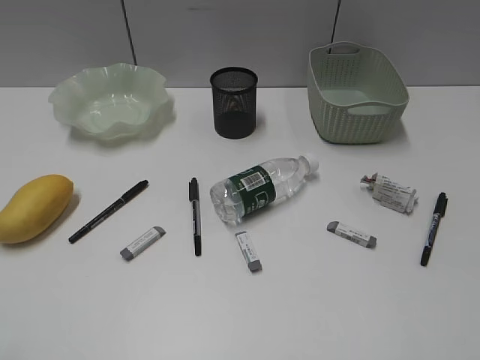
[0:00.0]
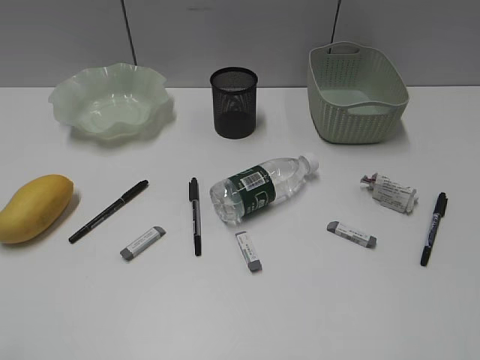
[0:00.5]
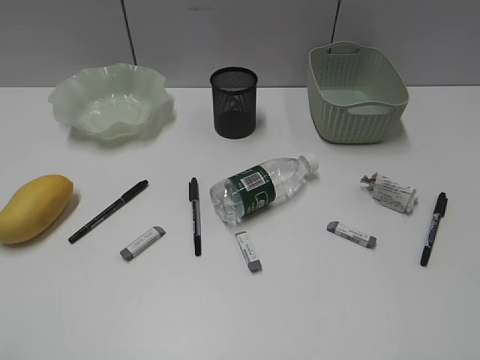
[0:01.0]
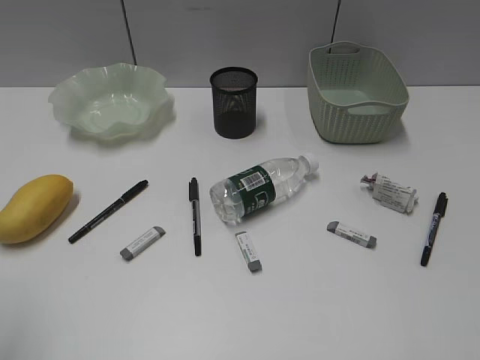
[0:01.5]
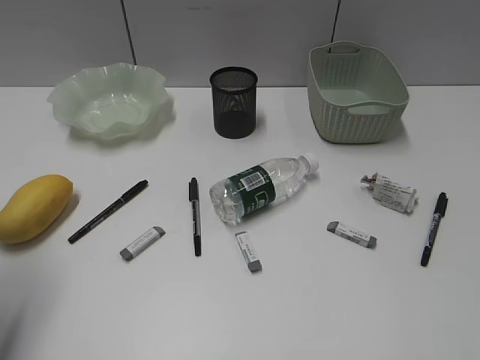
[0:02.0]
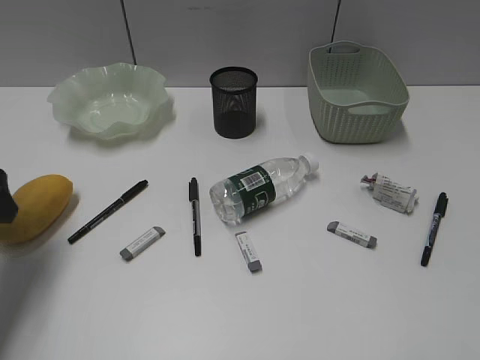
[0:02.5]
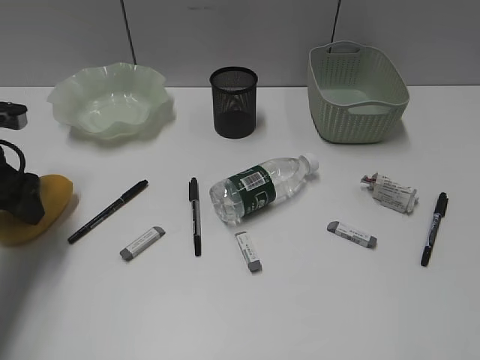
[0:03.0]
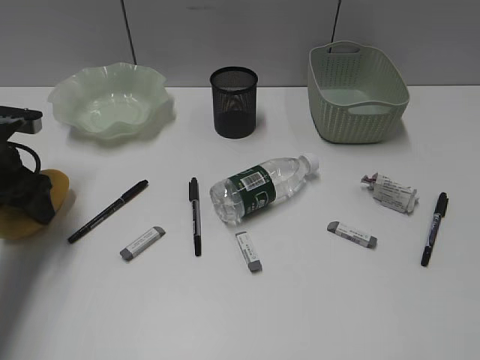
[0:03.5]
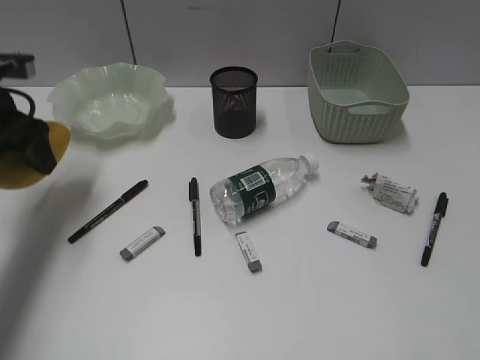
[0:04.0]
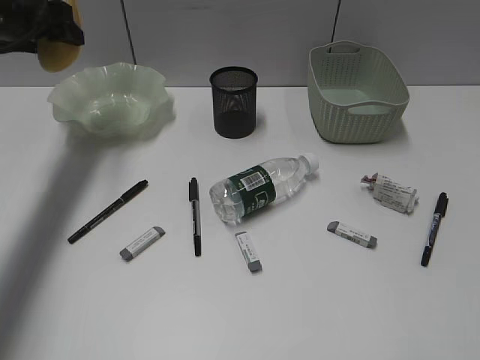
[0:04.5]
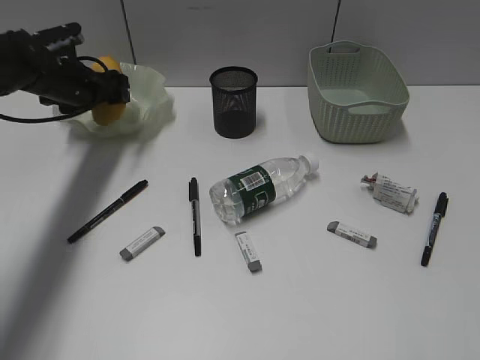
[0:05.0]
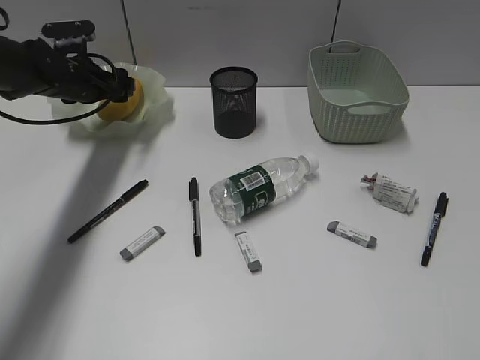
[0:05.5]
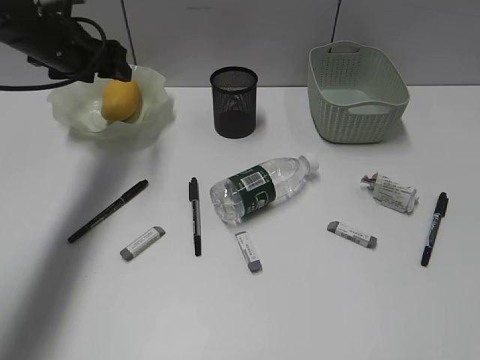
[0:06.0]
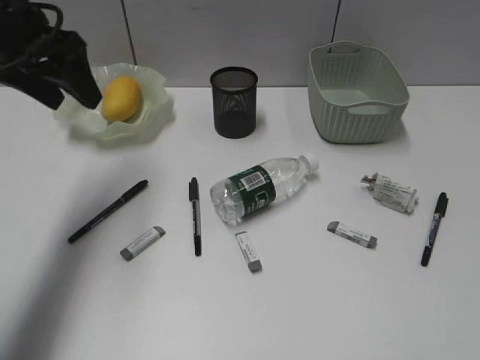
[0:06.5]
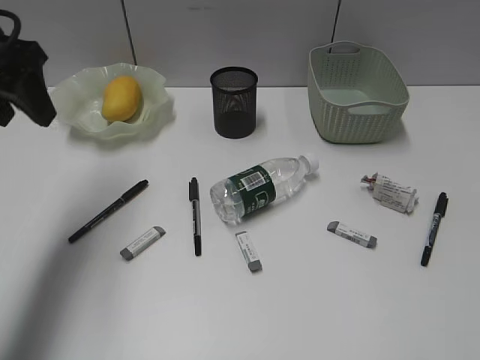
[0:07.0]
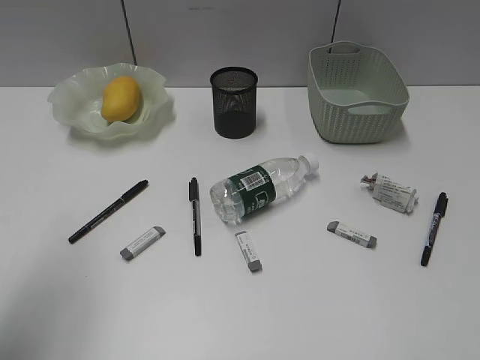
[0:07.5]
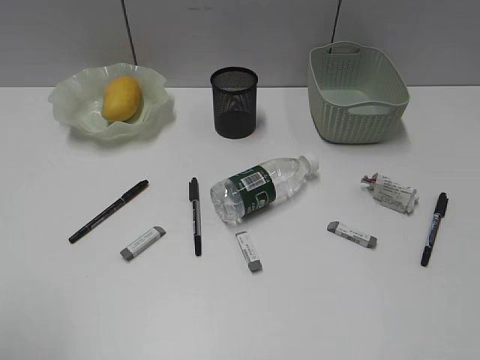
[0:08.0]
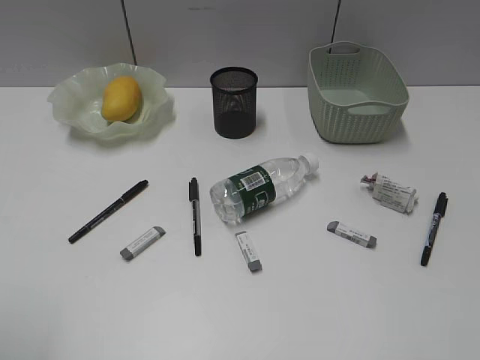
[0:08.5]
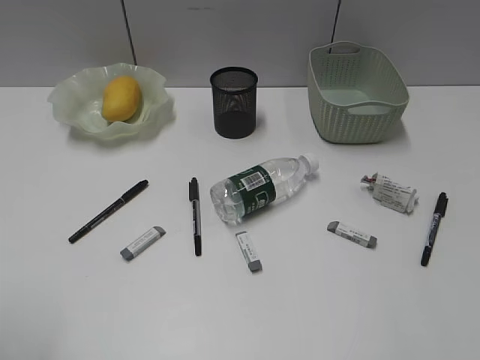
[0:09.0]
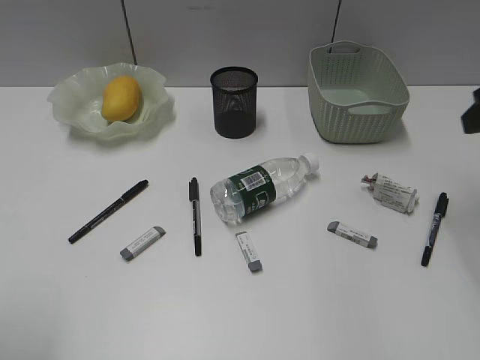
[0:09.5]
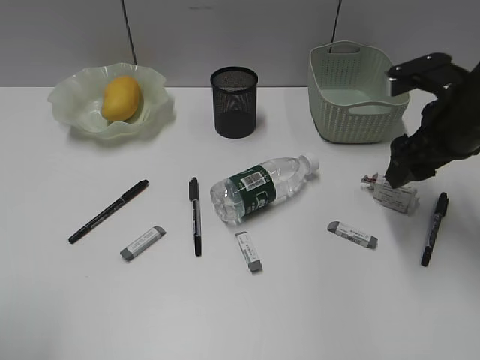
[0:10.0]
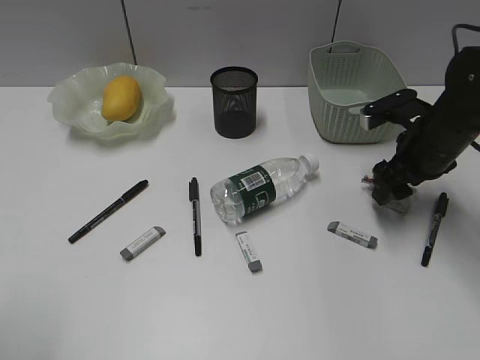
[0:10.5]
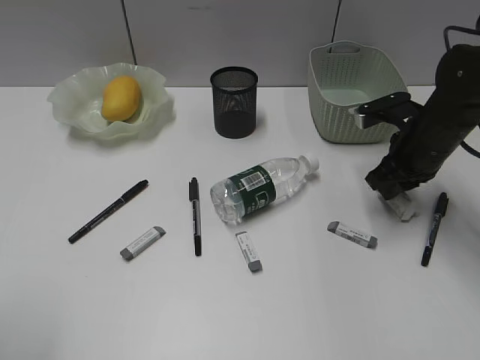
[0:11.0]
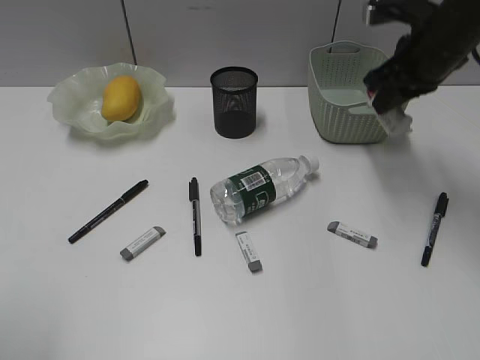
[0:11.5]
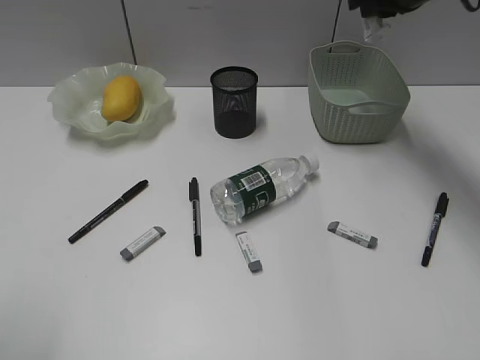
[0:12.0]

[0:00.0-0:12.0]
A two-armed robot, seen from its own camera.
Step, 0:02.5 to 0:03.0: Grasp the mango with left gripper.
Step, 0:03.5 to 0:06.0: Place the mango in the plate with left gripper.
Step, 0:06.5 to 0:11.0: Grasp the waste paper with right gripper.
0:02.0 to 0:04.0: The left gripper heads forward, covering about 20 cm.
0:04.0 to 0:06.0: The left gripper is displaced forward and to the right by about 10 cm.
0:06.0 to 0:08.0: The left gripper is displaced backward by approximately 40 cm.
0:08.0 to 0:10.0: The right gripper travels forward by some 35 cm.
0:10.0 to 0:12.0: The right gripper is displaced forward and upward by roughly 15 cm, and closes up.

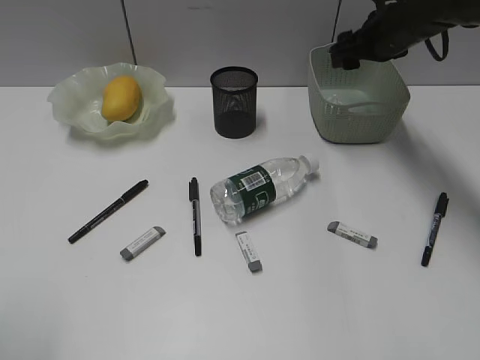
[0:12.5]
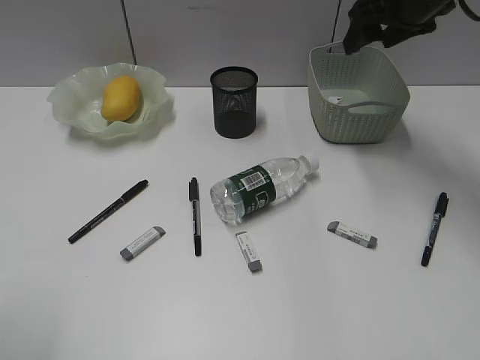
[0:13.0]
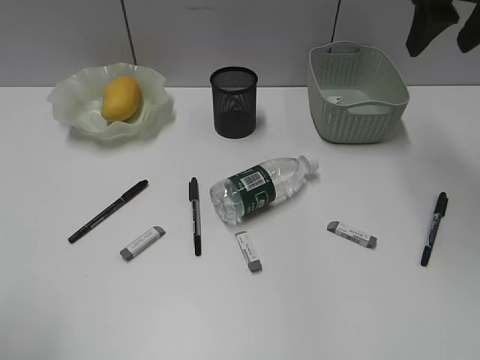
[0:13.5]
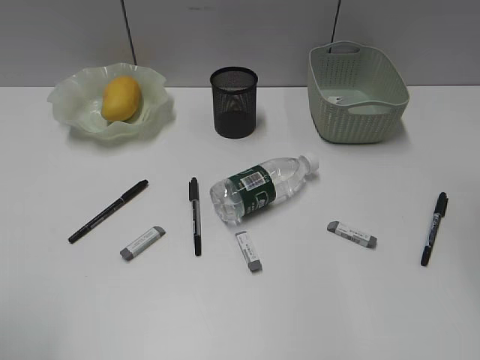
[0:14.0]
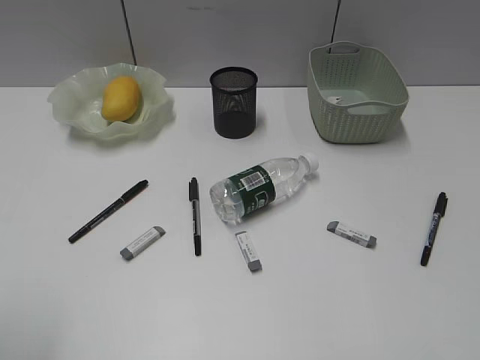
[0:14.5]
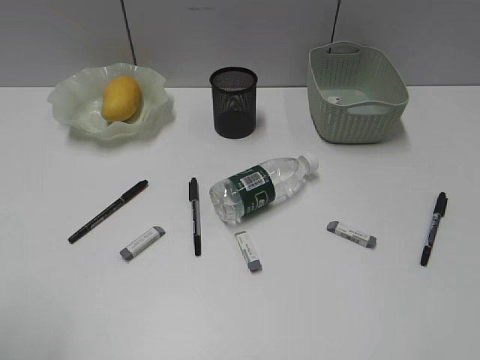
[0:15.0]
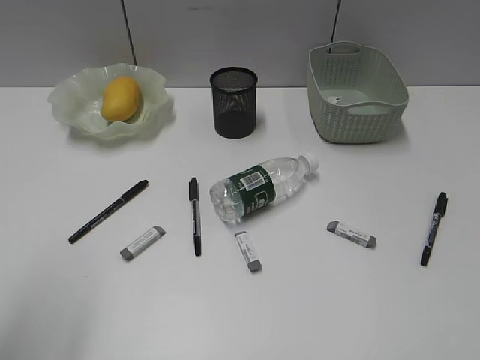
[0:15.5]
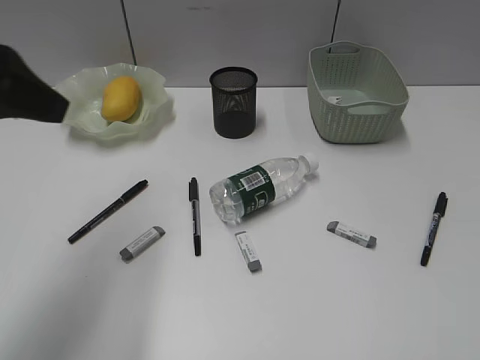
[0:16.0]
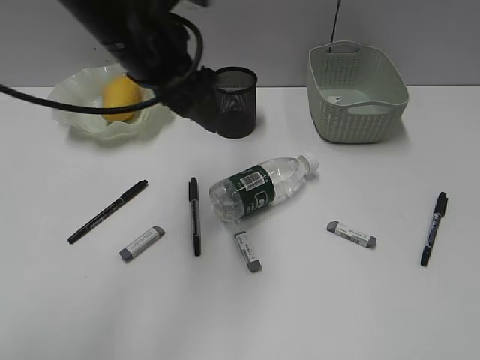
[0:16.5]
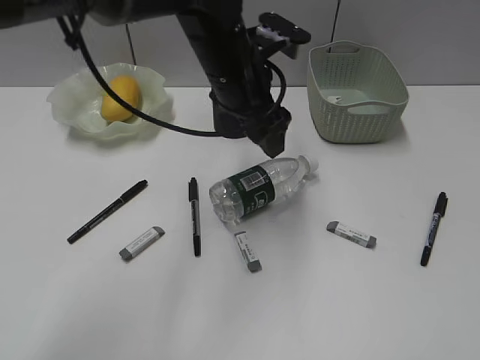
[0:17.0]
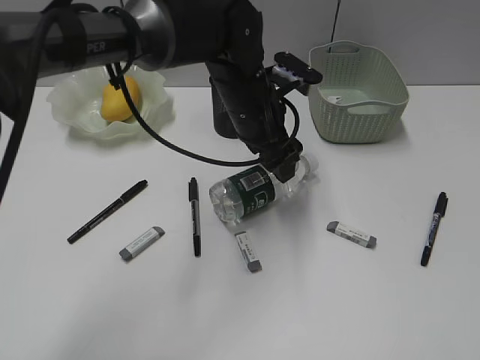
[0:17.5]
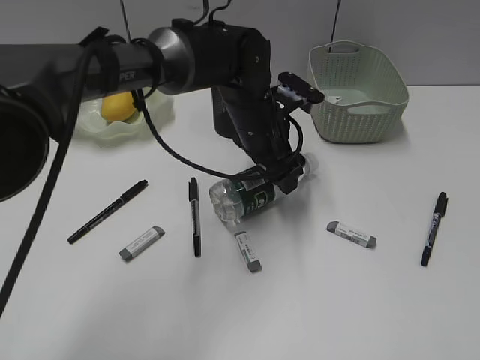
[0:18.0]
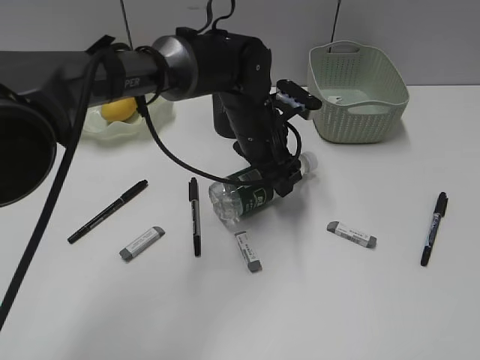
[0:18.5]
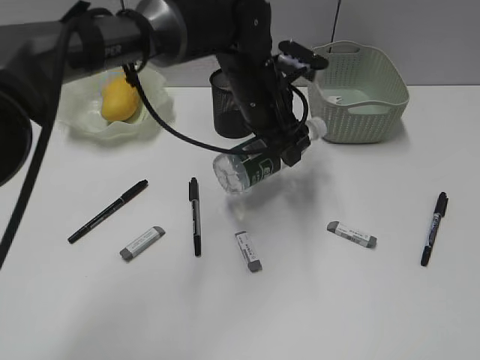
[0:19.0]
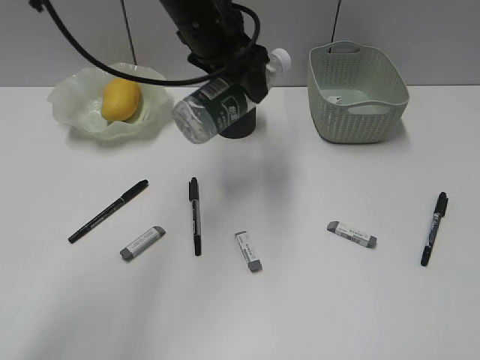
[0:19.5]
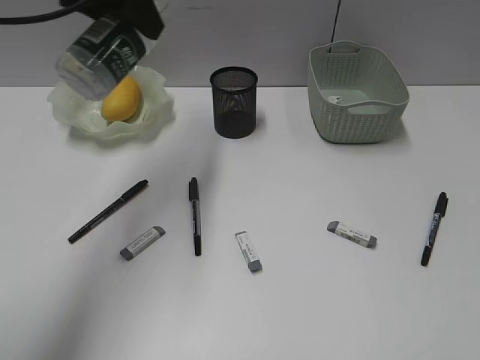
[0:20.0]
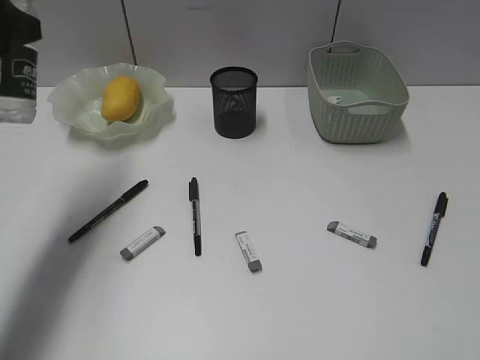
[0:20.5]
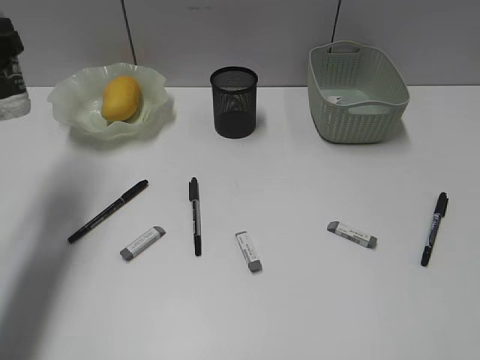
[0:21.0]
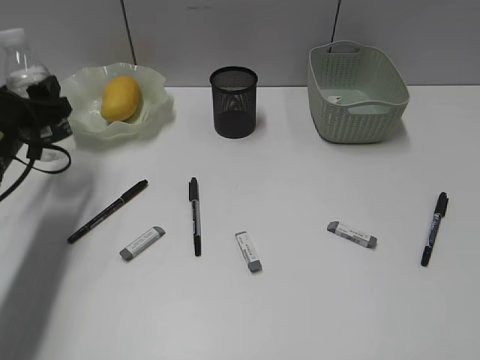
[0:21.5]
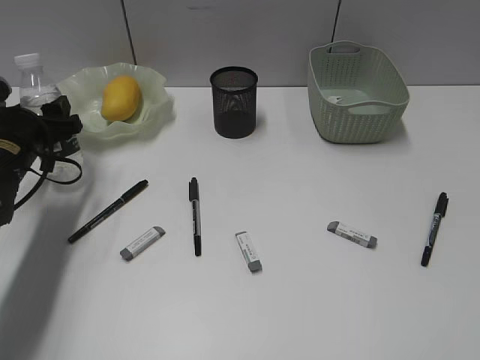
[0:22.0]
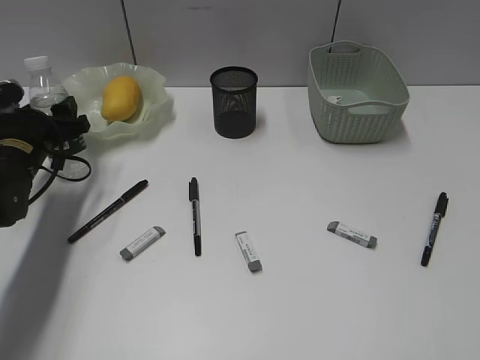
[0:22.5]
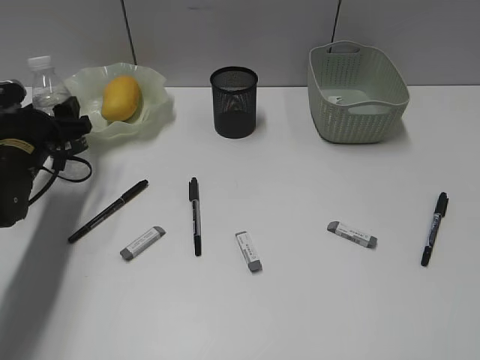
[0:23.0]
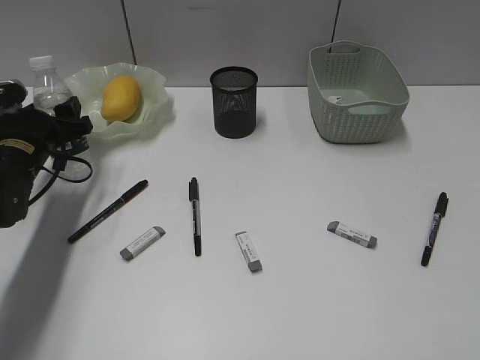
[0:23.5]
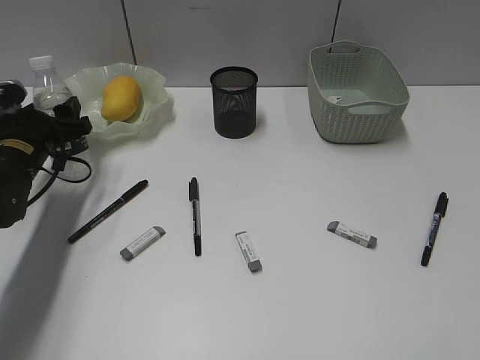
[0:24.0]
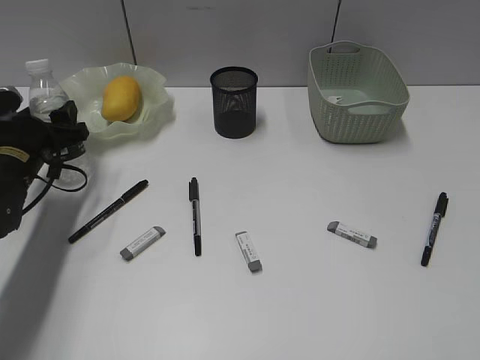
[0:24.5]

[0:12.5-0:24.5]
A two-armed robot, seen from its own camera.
Step, 0:13.0 to 0:18.5: Grasp the bottle with left gripper.
0:12.5 to 0:14.5: The right gripper moves backward, roughly 40 cm.
0:14.5 to 0:16.5: The right gripper heads downward and backward, covering some 10 cm; the left gripper is displaced forward and to the right by some 35 cm.
0:16.5 to 0:18.5: The left gripper shifts about 20 cm downward, to the right and forward.
0:18.5 to 0:20.5: The left gripper is displaced to the left and upward by approximately 35 cm.
0:20.5 to 0:22.5: The left gripper moves downward and forward, roughly 20 cm.
0:22.5 to 0:24.5: Both grippers stay put.

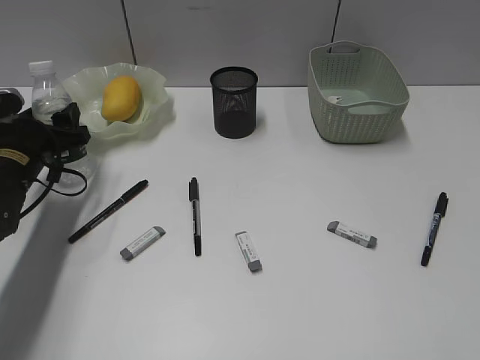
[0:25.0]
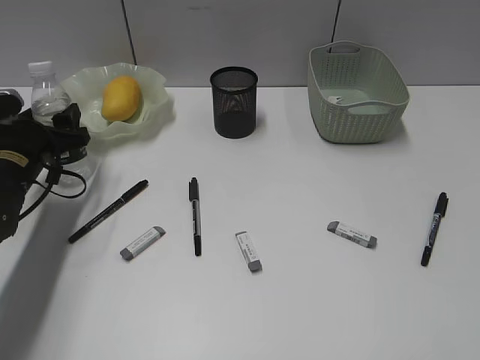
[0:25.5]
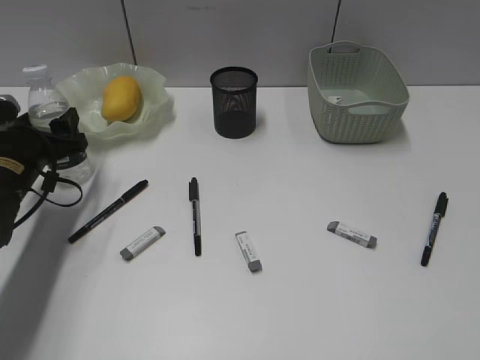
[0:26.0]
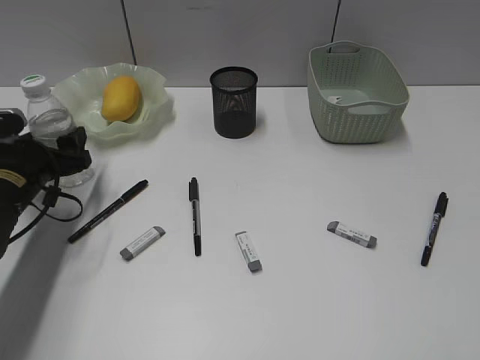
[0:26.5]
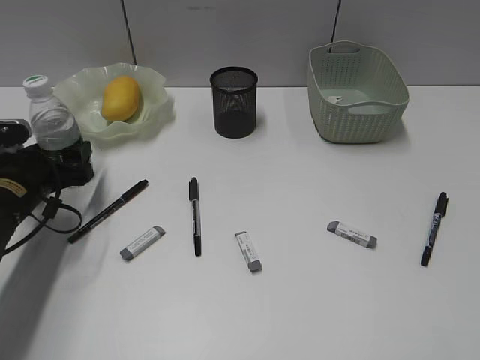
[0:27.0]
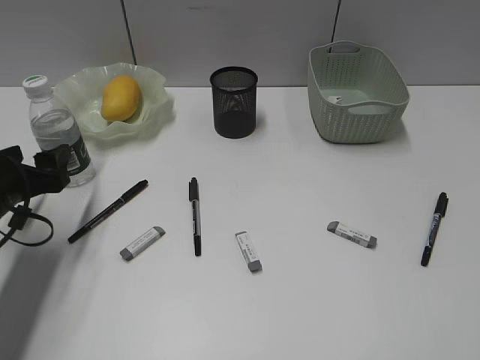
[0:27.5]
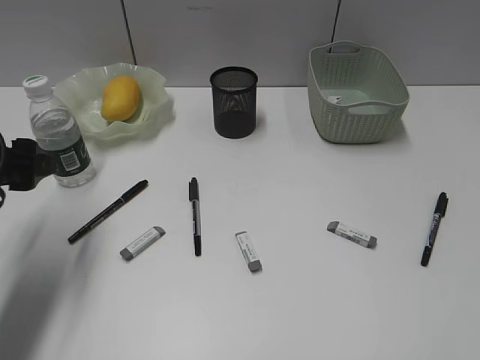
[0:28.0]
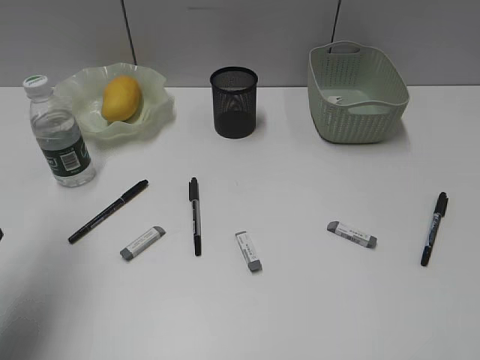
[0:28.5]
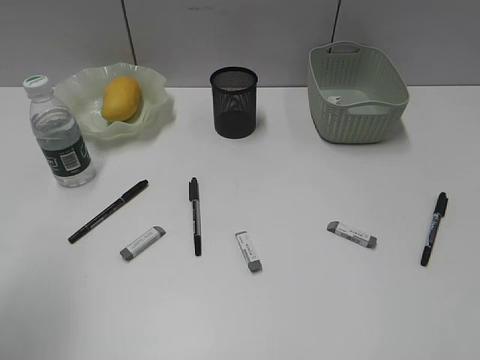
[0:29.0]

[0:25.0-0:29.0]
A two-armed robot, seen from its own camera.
Step, 0:25.0 to 0:27.0: Stand the bottle with left gripper.
0:25.0 to 0:27.0: There are only small adjustments of the grippers.
0:27.0 to 0:29.0: The left gripper heads upward and backward, covering roughly 30 cm.
